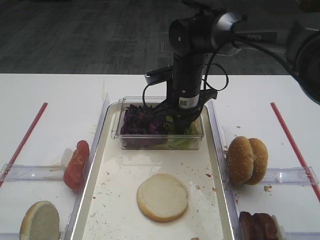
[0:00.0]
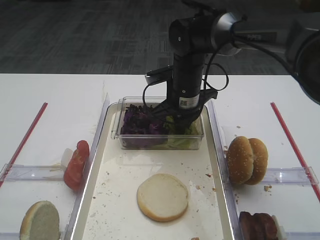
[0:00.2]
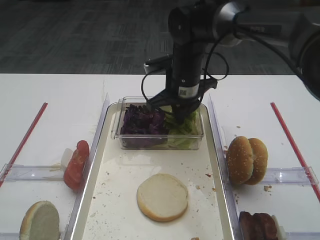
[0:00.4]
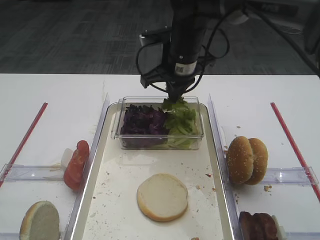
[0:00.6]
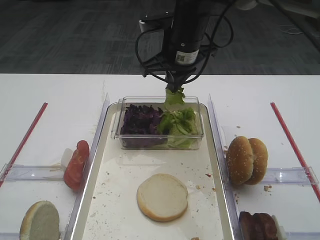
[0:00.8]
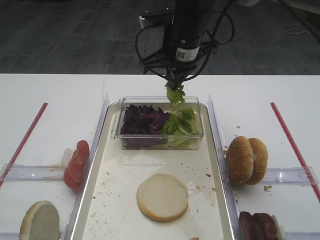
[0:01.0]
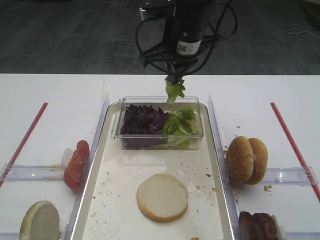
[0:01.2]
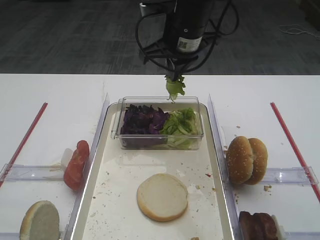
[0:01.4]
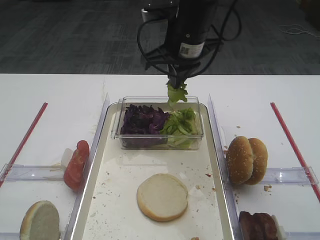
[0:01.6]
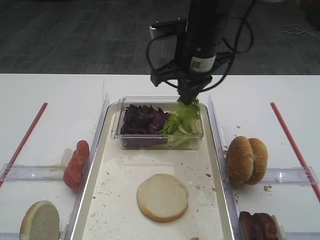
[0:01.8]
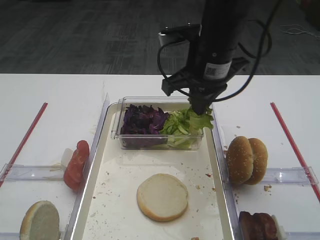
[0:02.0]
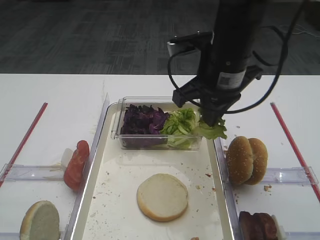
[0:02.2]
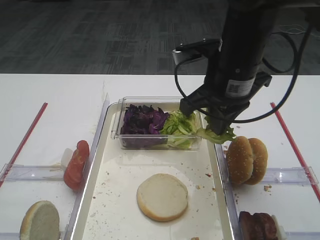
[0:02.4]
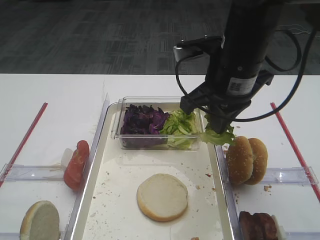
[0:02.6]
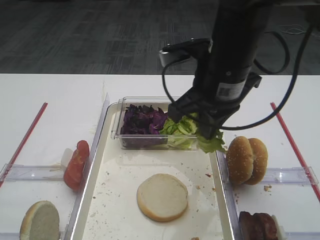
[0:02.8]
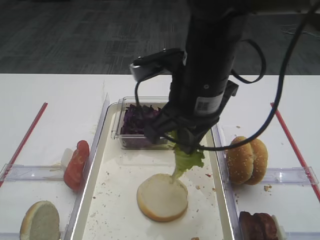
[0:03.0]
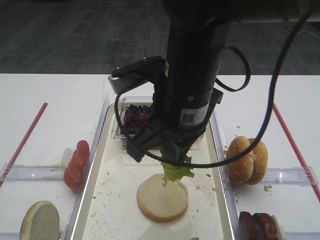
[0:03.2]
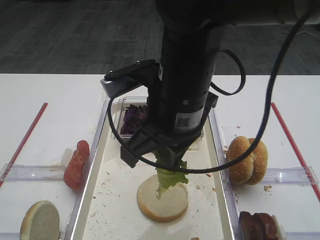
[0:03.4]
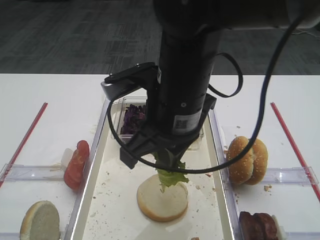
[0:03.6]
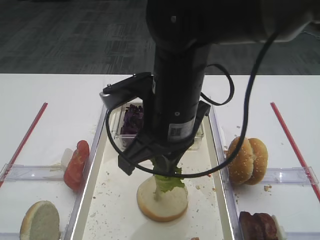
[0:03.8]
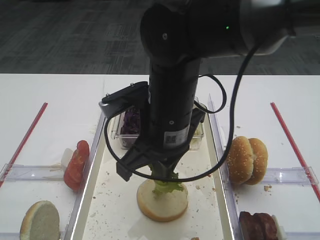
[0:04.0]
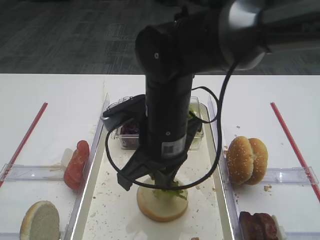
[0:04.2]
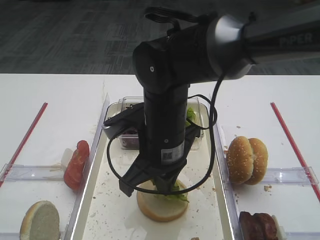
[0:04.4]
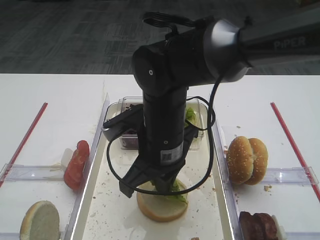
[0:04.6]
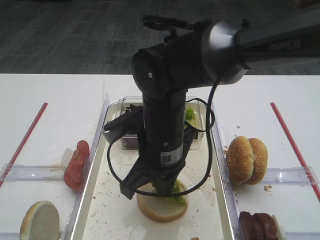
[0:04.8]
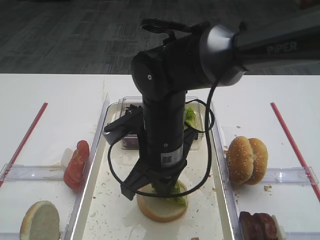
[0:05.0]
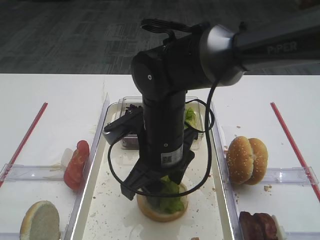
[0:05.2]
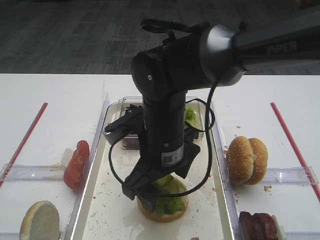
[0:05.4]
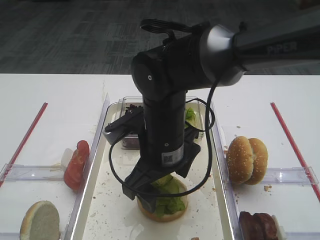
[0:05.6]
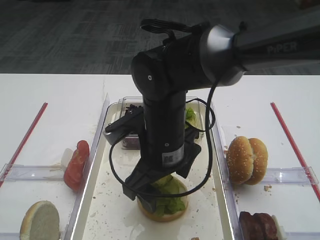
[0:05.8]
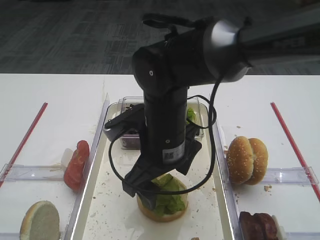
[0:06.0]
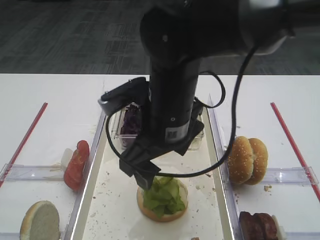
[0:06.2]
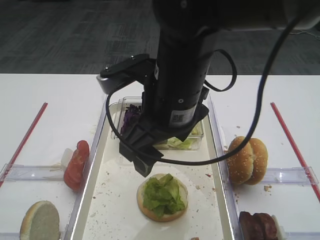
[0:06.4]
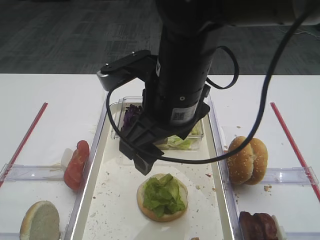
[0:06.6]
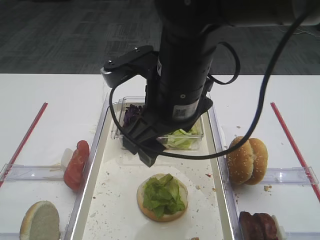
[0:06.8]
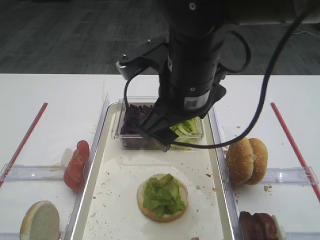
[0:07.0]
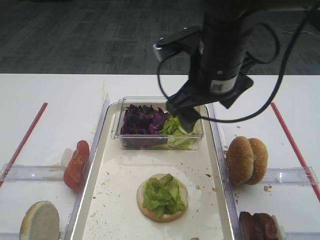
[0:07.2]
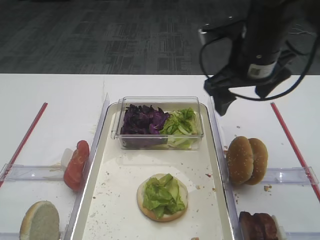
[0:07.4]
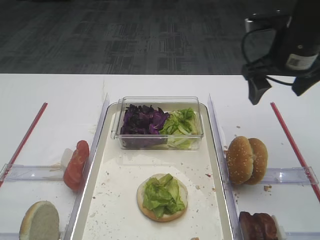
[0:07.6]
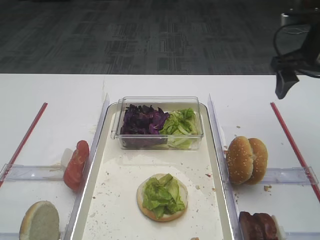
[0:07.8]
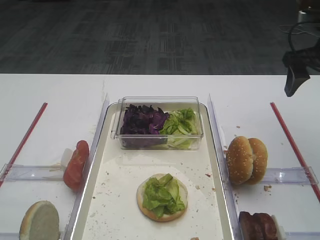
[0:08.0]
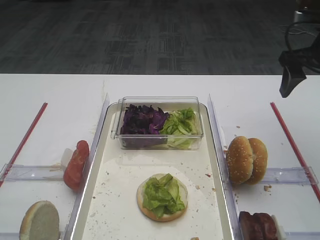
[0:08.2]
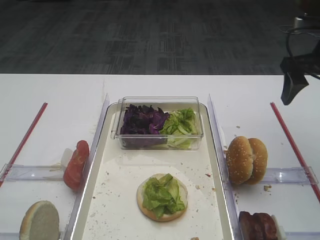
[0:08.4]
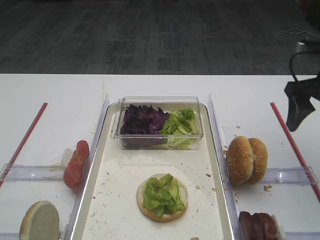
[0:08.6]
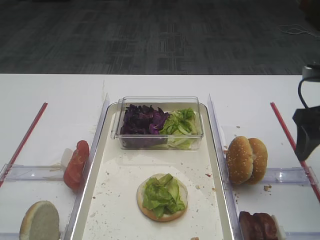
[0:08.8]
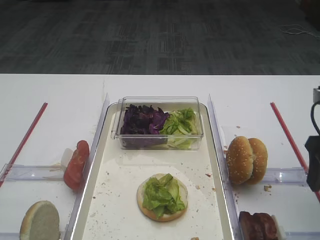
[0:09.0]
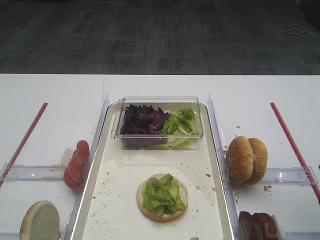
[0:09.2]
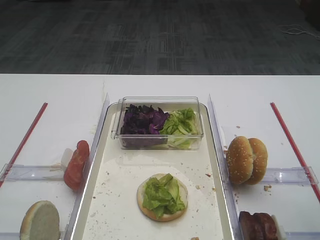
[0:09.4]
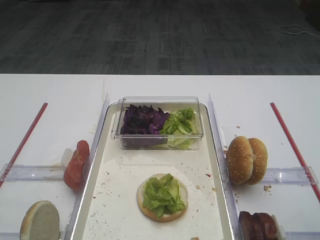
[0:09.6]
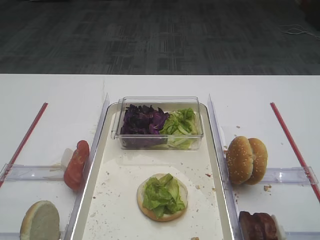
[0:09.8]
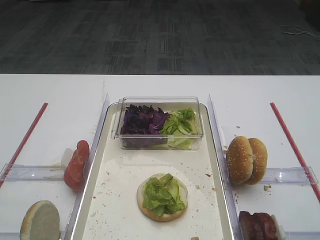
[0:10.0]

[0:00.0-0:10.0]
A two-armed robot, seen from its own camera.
Step, 0:01.0 to 0:06.4: Place the lettuce leaf on the bread slice with the right gripper.
0:00.0 to 0:01.4: The right gripper moves upward, roughly 10 cm.
0:01.4 to 0:02.8: The right gripper travels backward by approximately 10 cm.
0:02.8 to 0:04.2: The right gripper is displaced to the left and downward by some 10 cm.
0:04.2 to 0:05.8: The right gripper opens up.
0:05.8 to 0:07.2: The right gripper heads upward and to the right, covering approximately 10 cm.
0:07.2 to 0:08.6: The right gripper moves to the right, some 20 cm.
0:08.6 to 0:10.0: The right gripper moves backward, approximately 25 cm.

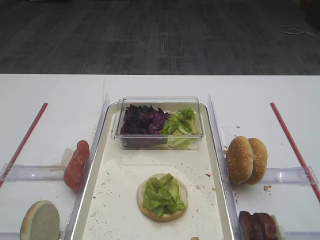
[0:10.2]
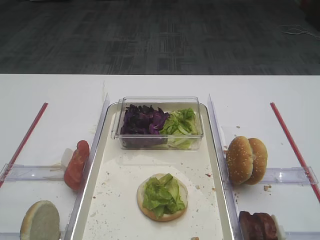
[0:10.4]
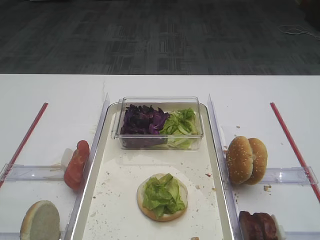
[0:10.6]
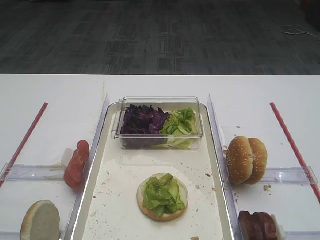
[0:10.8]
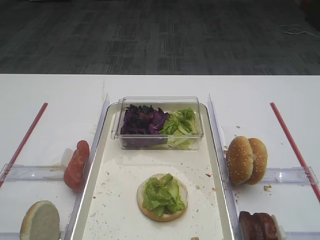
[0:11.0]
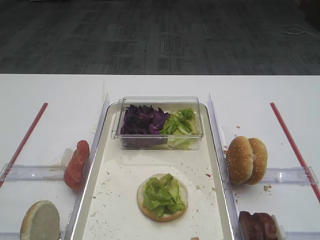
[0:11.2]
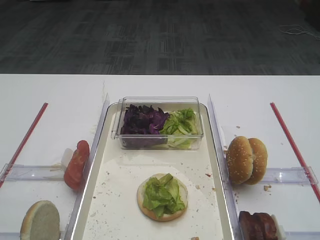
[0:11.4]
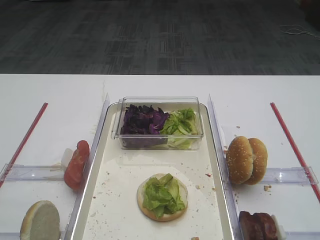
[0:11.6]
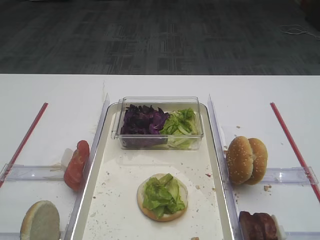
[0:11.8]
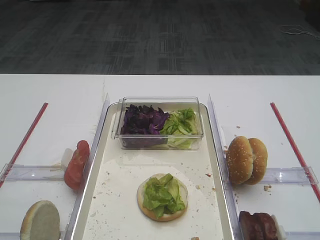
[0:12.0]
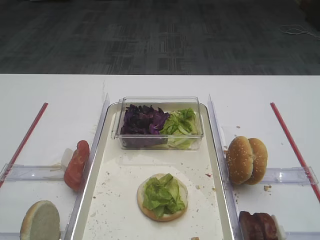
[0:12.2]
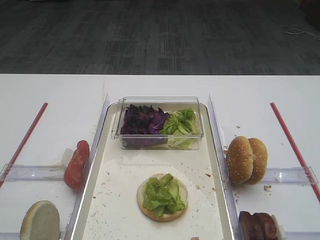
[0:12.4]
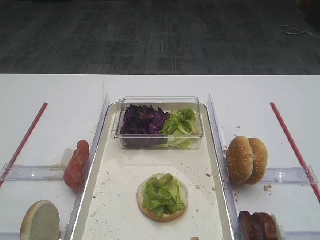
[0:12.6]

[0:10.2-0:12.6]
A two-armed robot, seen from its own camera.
0:11.4 to 0:12.6: Neither gripper changes place.

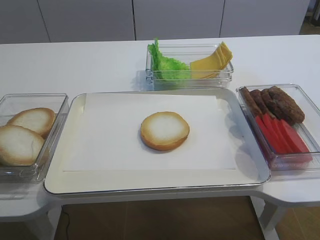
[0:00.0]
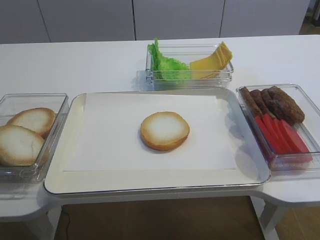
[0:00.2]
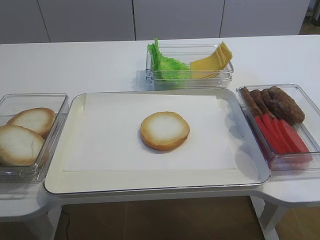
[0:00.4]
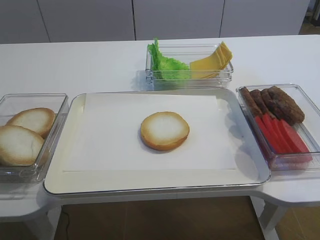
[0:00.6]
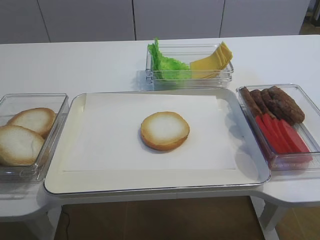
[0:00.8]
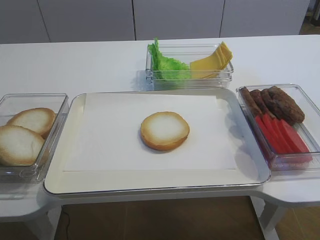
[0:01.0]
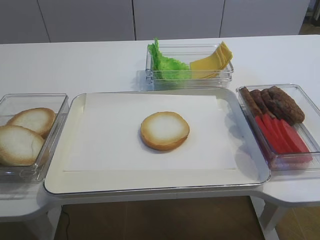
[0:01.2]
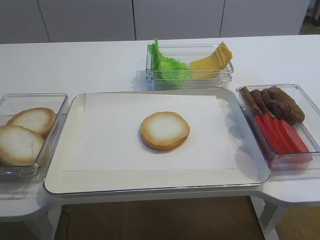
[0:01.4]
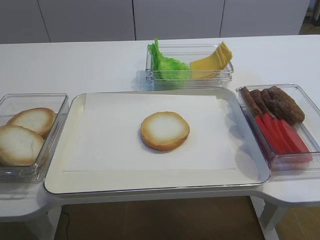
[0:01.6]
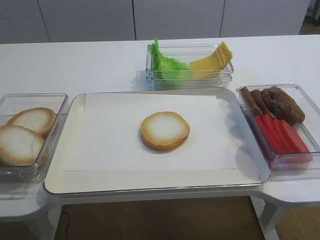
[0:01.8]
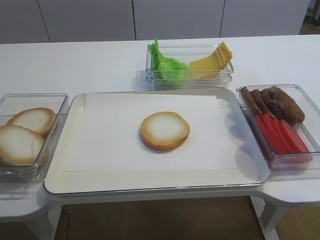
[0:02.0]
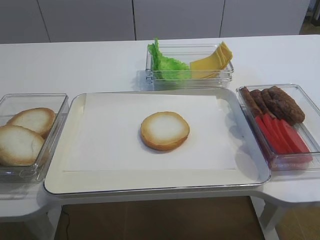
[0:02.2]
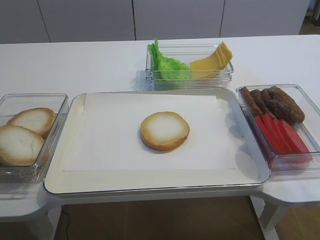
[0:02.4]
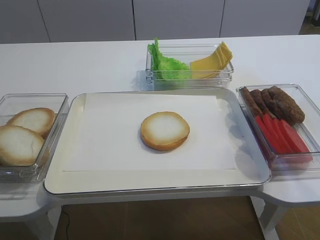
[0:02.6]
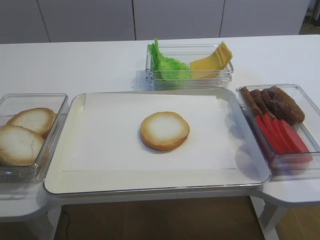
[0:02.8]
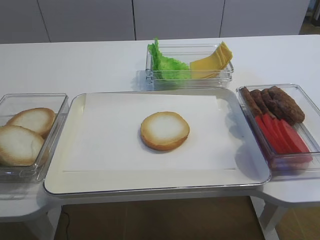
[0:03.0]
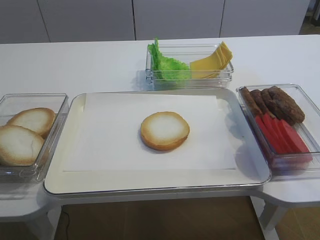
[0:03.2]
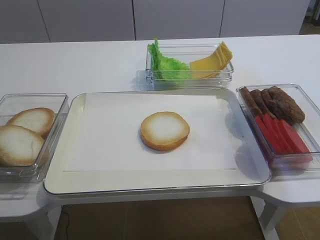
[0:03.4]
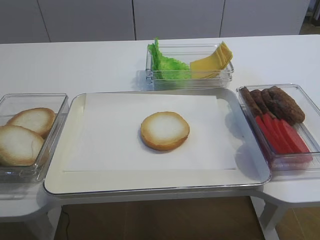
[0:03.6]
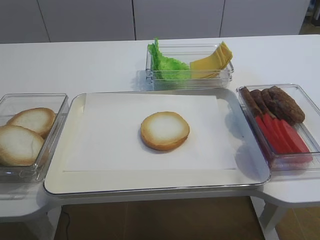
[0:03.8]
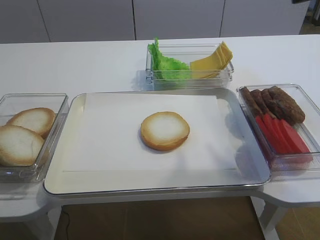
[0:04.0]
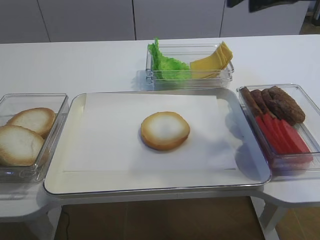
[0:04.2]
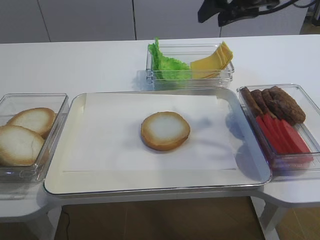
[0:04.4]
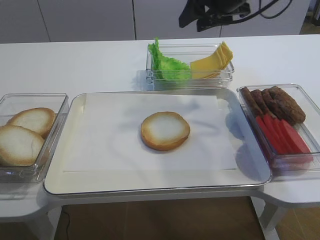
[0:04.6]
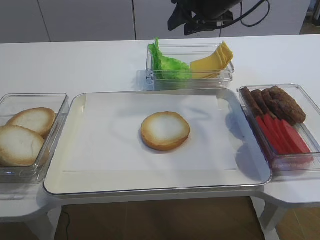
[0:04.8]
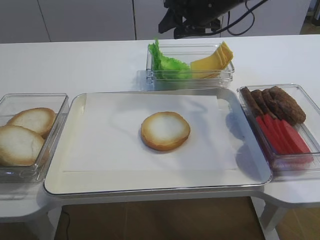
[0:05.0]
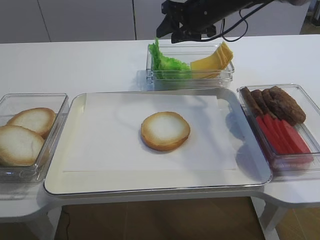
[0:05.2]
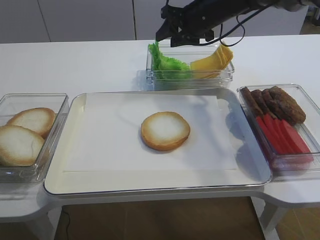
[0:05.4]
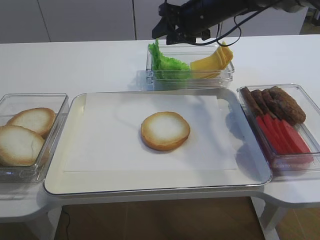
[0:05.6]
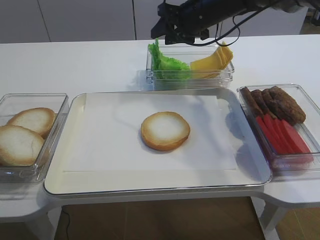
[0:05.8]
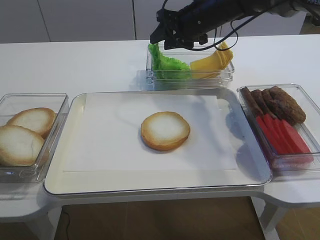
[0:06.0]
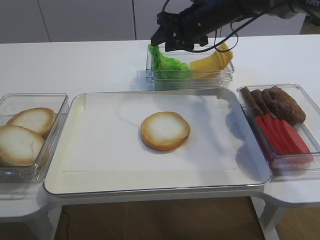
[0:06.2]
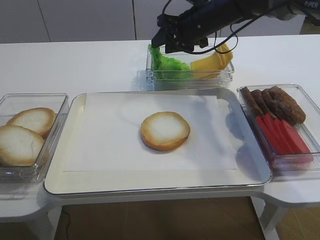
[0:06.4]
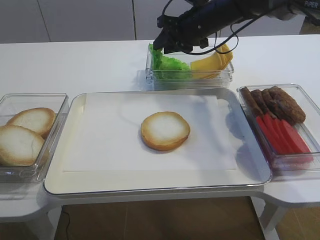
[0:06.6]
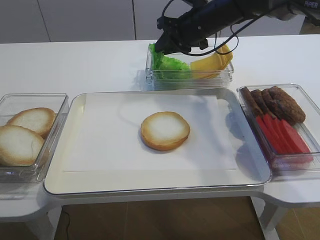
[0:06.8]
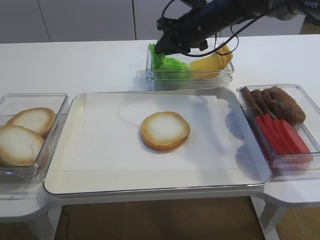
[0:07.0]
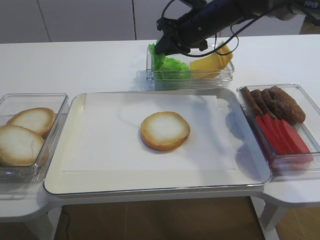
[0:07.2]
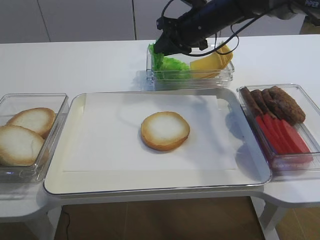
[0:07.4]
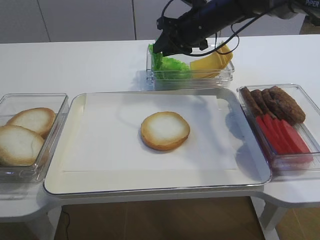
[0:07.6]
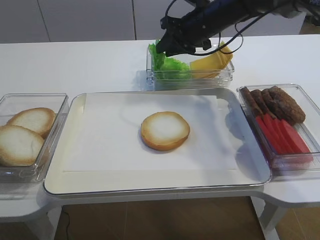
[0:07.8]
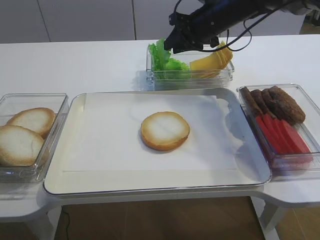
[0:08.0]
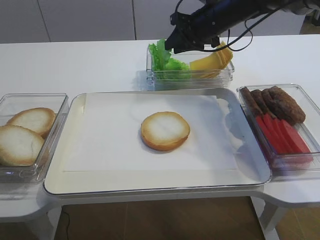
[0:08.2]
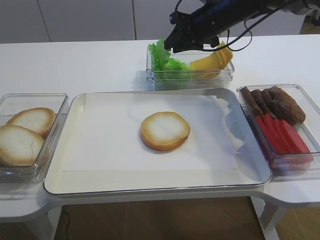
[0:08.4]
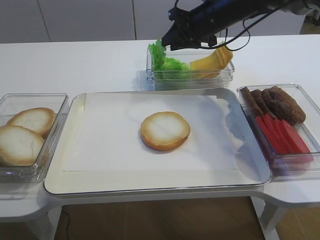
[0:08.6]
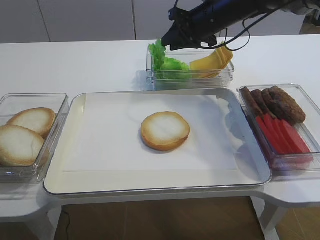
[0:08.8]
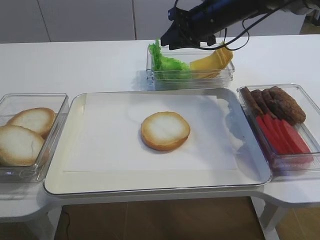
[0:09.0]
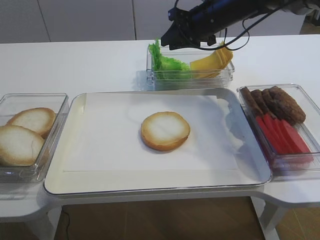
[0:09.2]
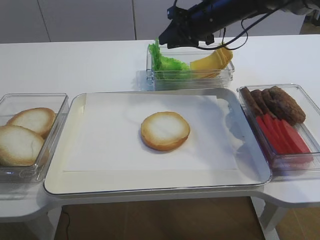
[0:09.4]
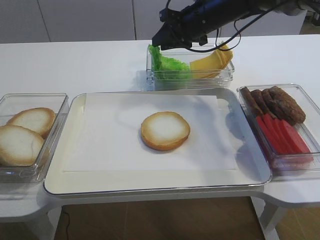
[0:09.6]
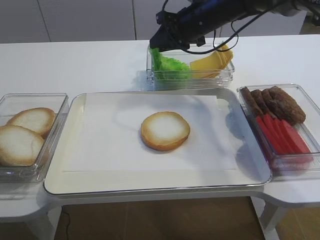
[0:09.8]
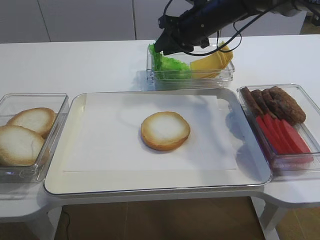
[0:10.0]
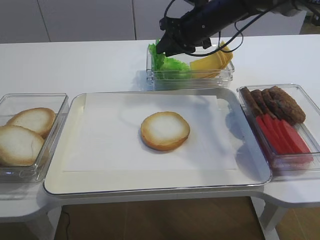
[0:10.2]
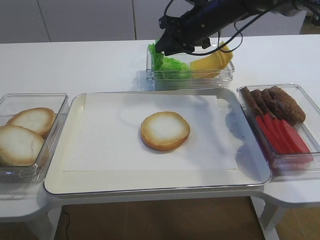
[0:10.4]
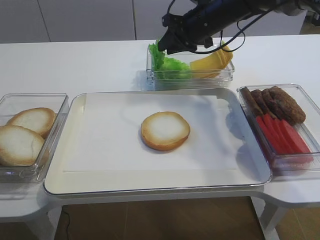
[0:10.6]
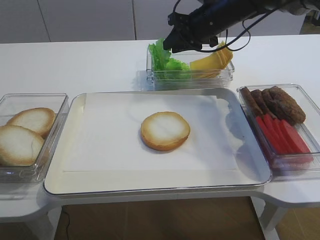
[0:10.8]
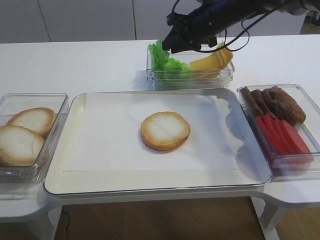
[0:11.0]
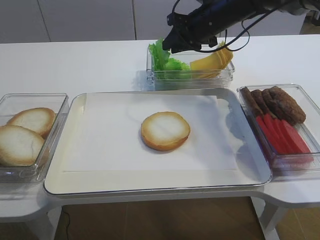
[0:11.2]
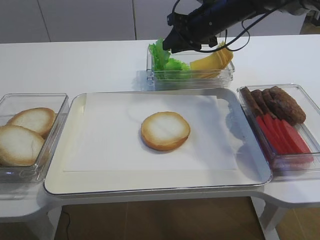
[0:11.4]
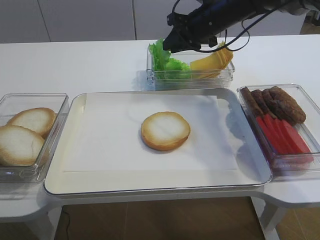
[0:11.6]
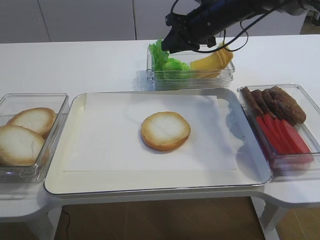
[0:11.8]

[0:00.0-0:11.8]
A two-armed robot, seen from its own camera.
0:01.4 to 0:03.0: The right gripper shifts some 5 cm upward, and opens.
0:03.0 to 0:04.4: The right gripper heads forward, covering roughly 35 cm.
0:04.4 to 0:06.0: The right gripper shifts approximately 15 cm forward, downward and to the left.
0:06.0 to 0:07.4: The right gripper closes its fingers.
0:07.4 to 0:11.8: The grippers move only a little.
